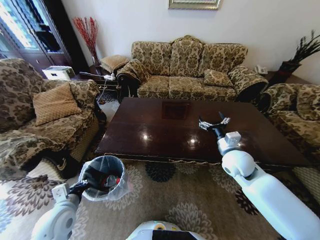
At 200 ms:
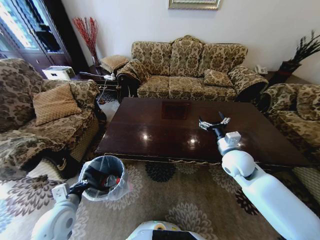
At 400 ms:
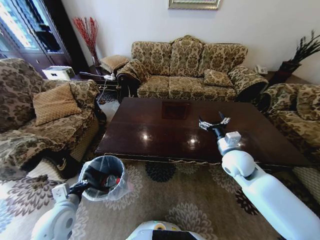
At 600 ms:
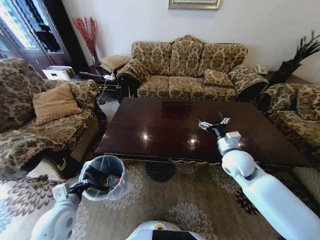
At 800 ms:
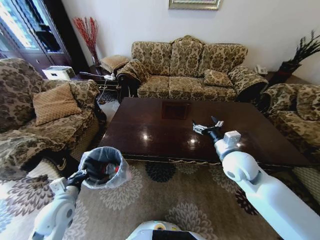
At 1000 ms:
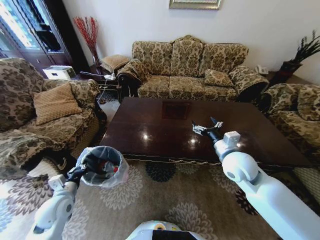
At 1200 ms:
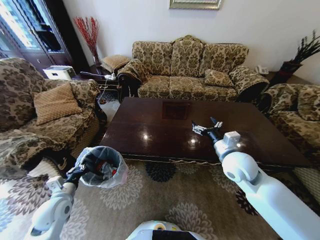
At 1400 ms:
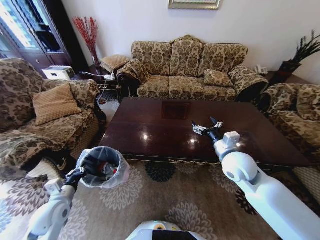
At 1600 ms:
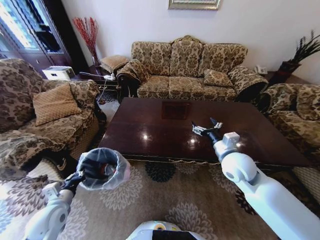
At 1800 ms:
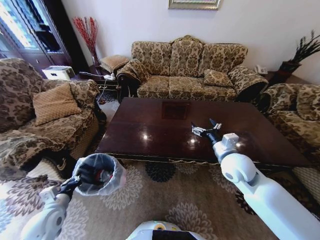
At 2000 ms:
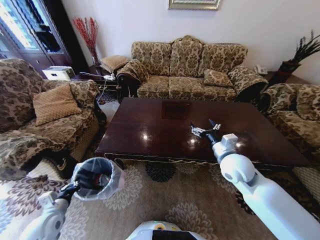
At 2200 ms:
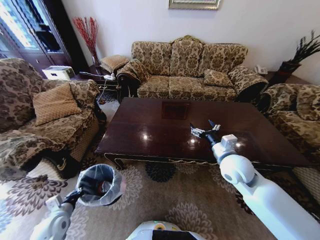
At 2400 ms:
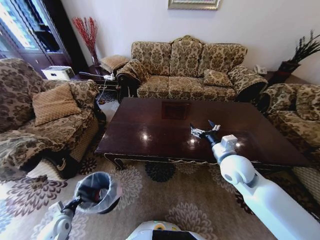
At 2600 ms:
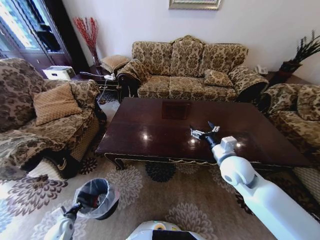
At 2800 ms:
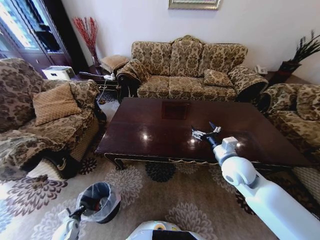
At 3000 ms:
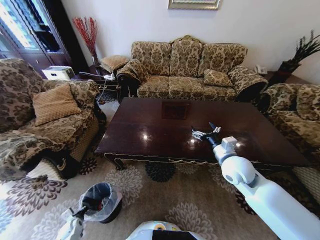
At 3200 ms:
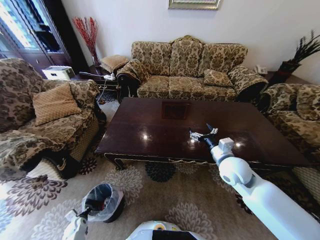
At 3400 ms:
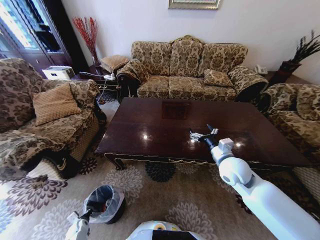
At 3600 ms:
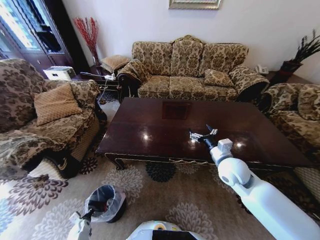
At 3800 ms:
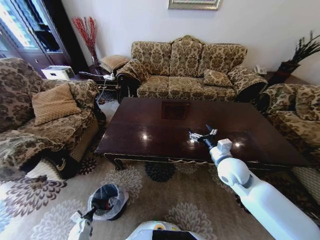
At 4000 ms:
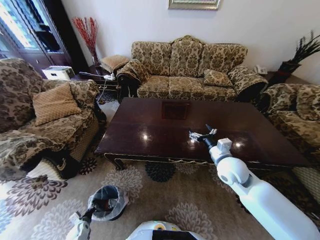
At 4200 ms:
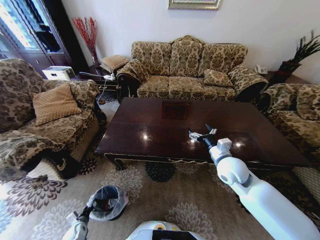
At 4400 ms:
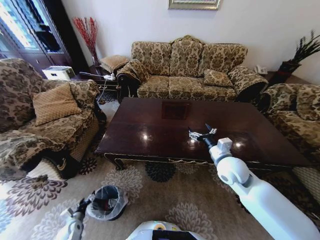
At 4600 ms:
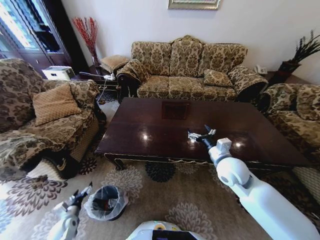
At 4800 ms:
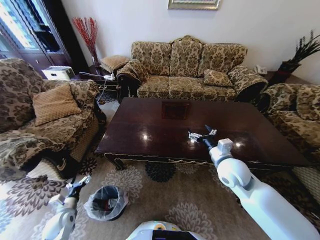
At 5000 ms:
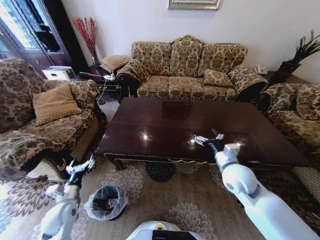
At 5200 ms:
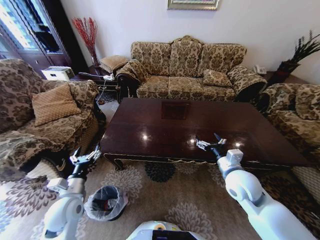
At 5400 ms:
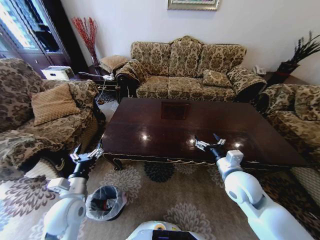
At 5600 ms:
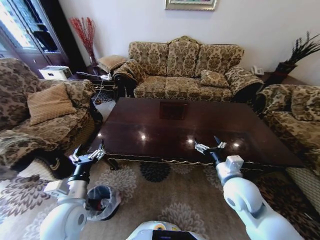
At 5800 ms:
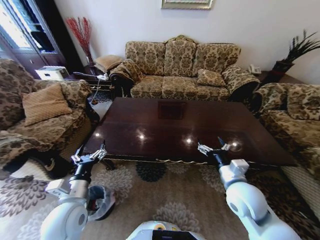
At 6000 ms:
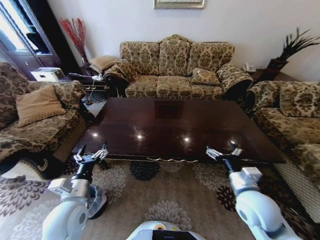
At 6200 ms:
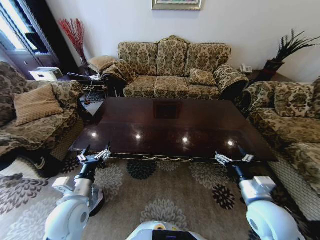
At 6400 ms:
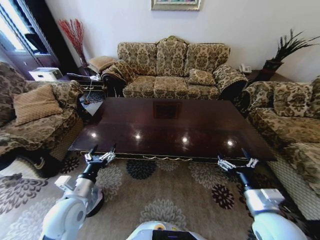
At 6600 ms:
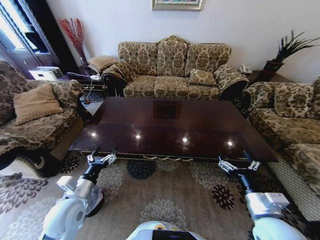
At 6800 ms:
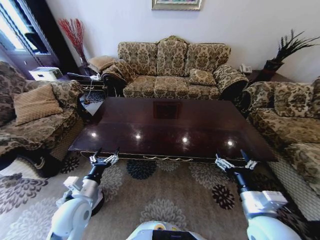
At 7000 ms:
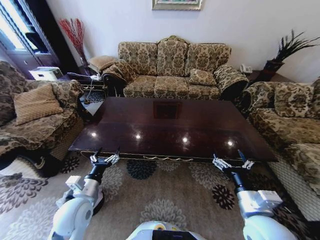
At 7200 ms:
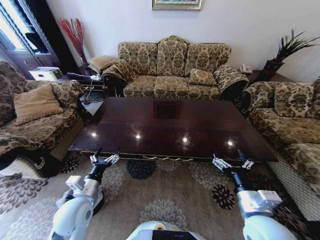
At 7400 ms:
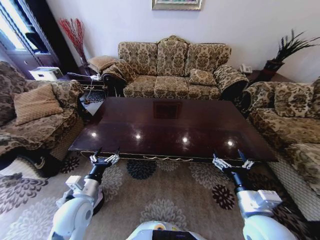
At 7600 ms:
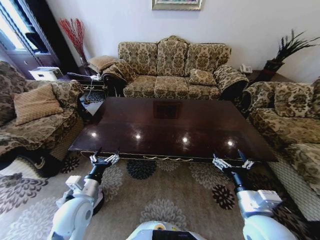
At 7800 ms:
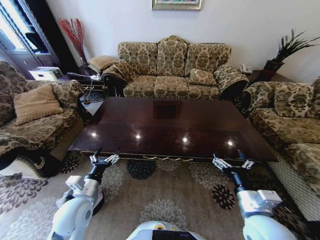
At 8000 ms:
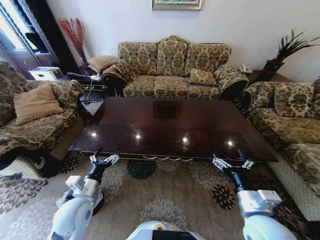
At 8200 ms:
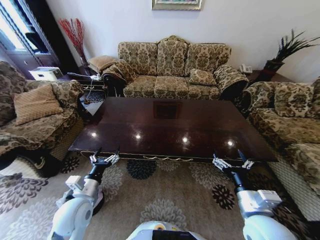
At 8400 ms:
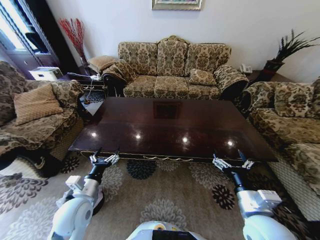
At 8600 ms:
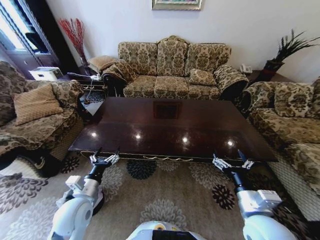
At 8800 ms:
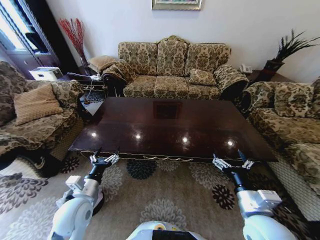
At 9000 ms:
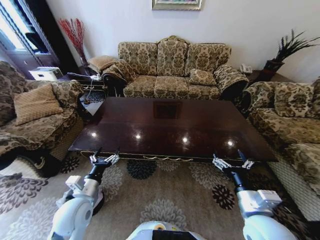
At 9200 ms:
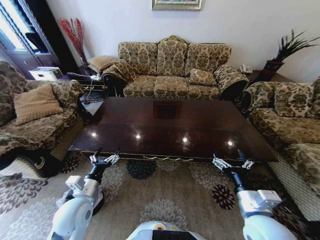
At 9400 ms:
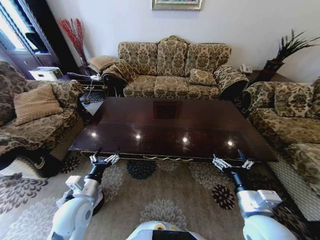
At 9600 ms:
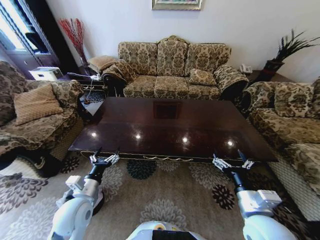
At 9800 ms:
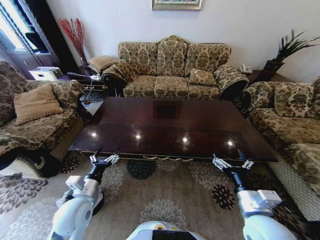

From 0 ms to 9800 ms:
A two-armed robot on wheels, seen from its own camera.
Task of the whole recording: Move to the front of the table and place the trash on the table into the trash bin.
From 0 ms to 1400 ms: The left gripper travels to the left by about 5 cm.
From 1400 ms to 2800 ms: The left gripper heads downward, covering some 25 cm.
From 2800 ms to 4200 ms: The left gripper shifts approximately 5 cm downward, and opens.
From 4200 ms to 5600 ms: The right gripper goes some 5 cm backward; the left gripper shifts roughly 40 cm upward and to the right, and opens its fingers.
From 5600 ms to 7000 ms: The right gripper is displaced backward by some 10 cm.
From 7000 ms to 9800 ms: Neither gripper changes place.
